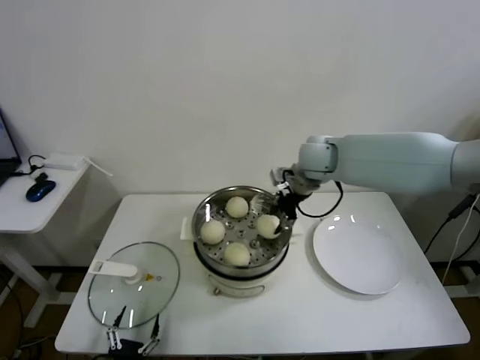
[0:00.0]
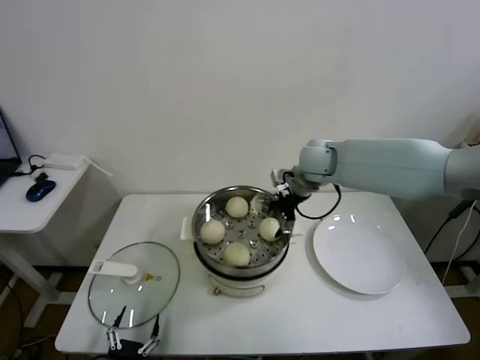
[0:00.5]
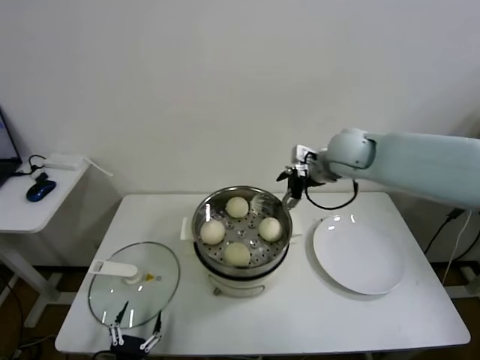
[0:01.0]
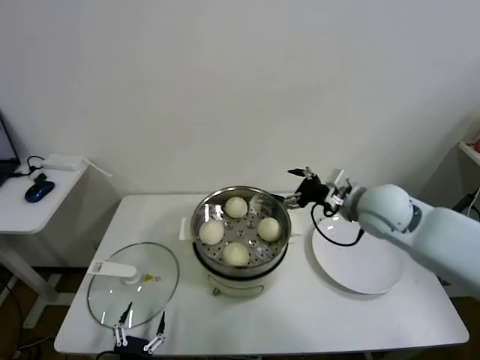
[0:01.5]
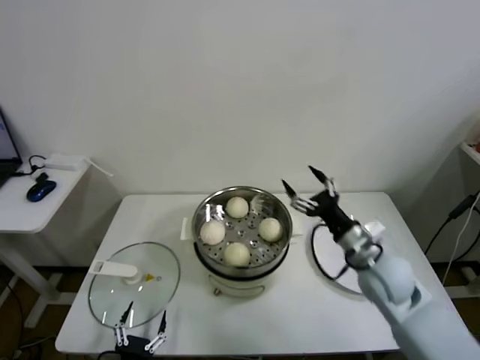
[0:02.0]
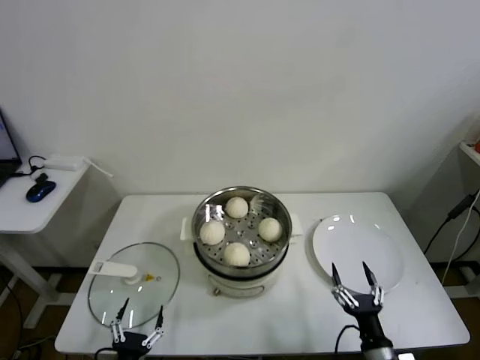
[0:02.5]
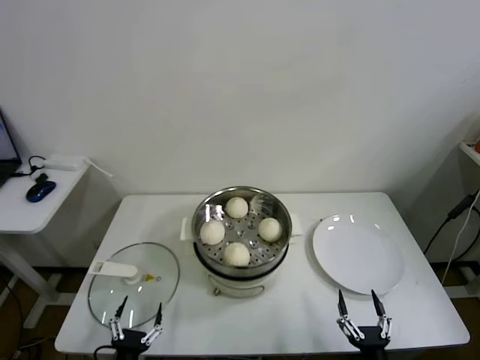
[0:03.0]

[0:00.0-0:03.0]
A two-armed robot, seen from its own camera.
Task of the whole recording: take steamed baozi put them in steamer.
0:00.0 to 0:01.5: The right gripper moves backward and to the right, approximately 15 cm, and opens its fingers.
0:01.5 to 0:03.0: The right gripper goes about 50 cm backward and downward.

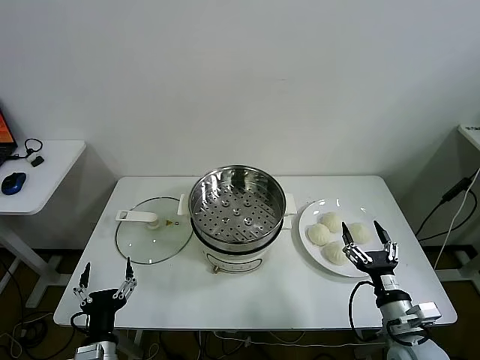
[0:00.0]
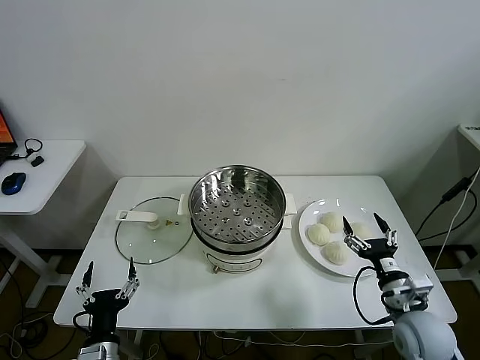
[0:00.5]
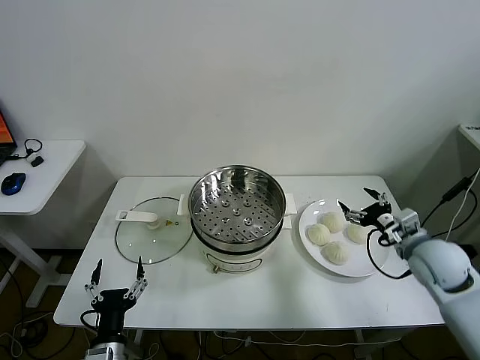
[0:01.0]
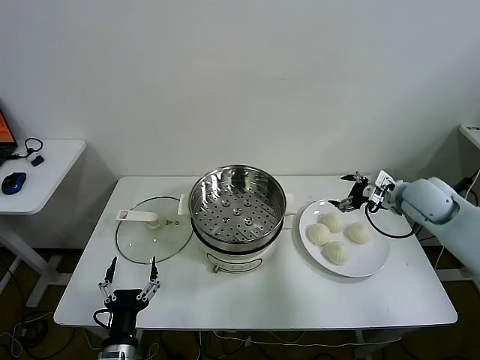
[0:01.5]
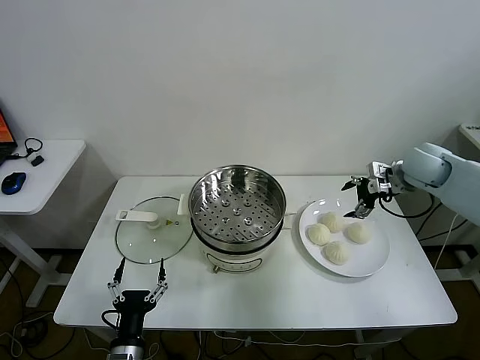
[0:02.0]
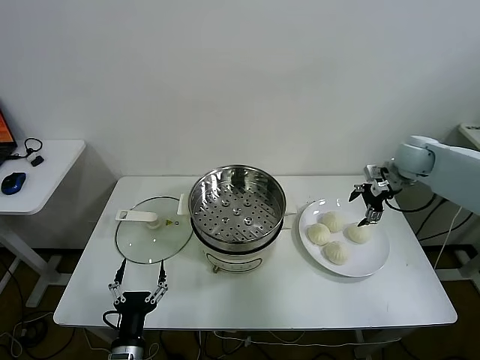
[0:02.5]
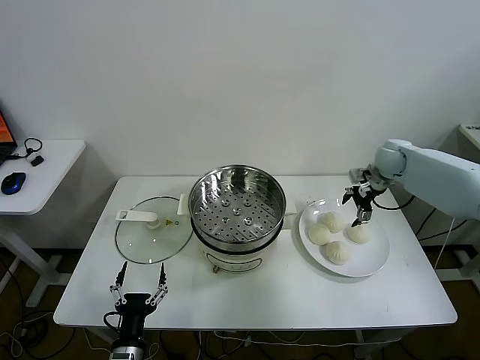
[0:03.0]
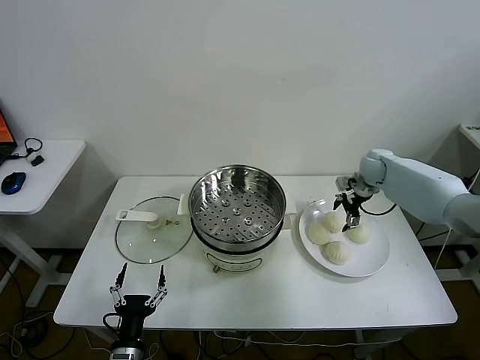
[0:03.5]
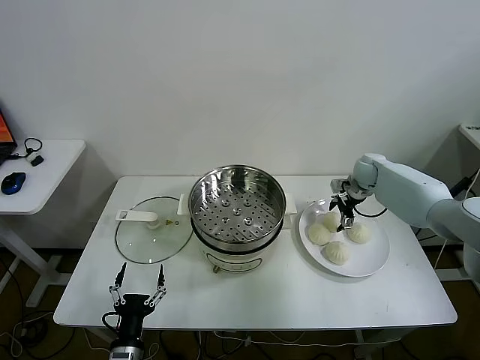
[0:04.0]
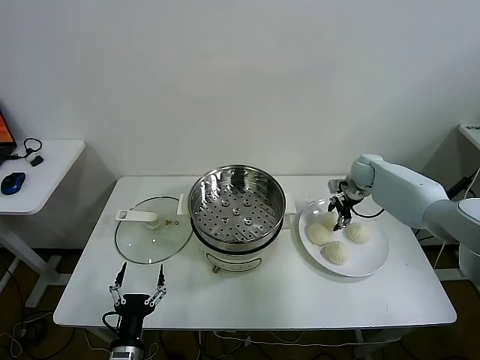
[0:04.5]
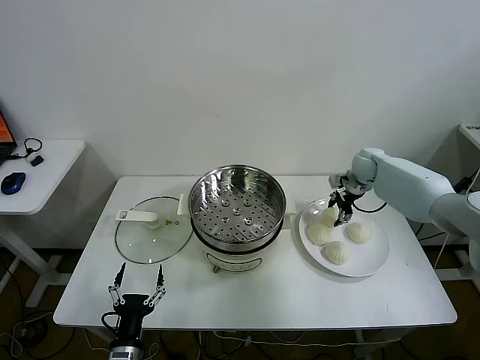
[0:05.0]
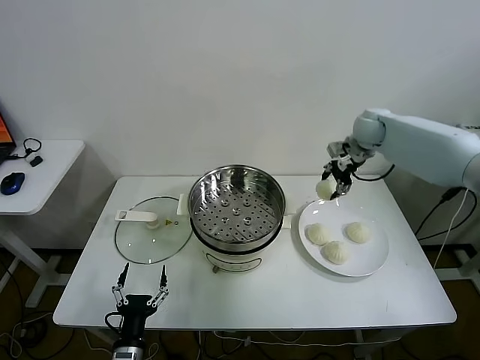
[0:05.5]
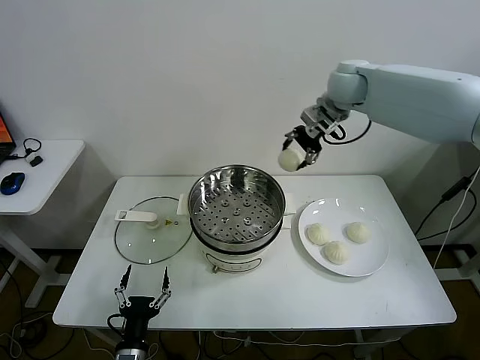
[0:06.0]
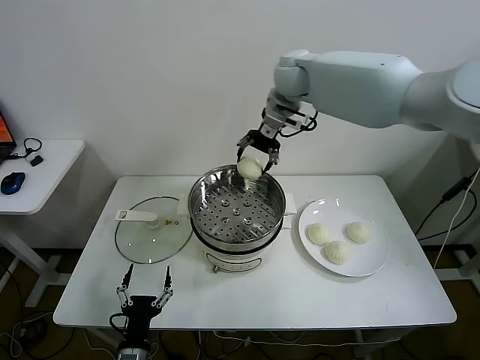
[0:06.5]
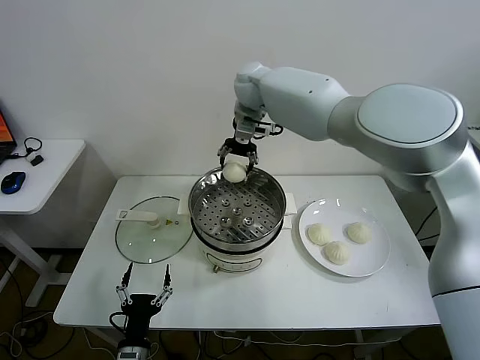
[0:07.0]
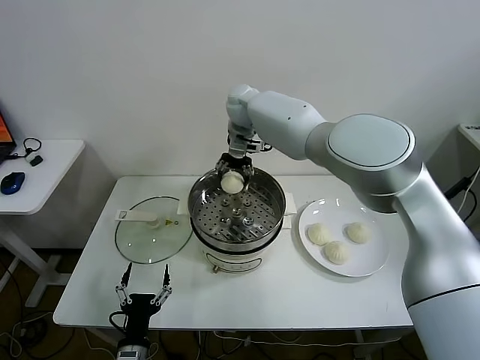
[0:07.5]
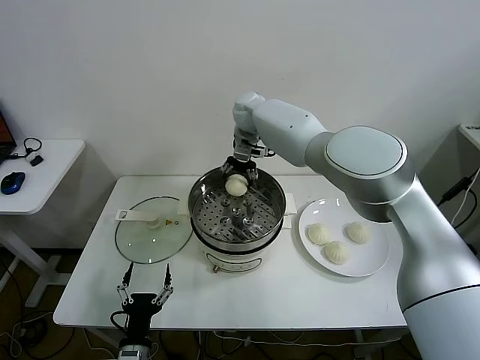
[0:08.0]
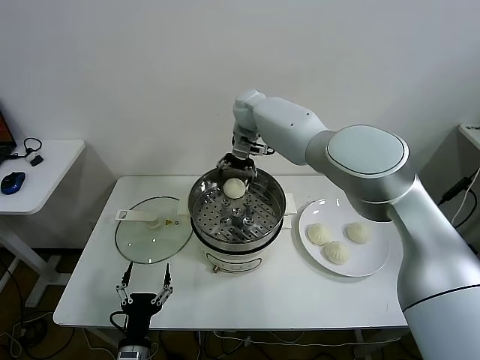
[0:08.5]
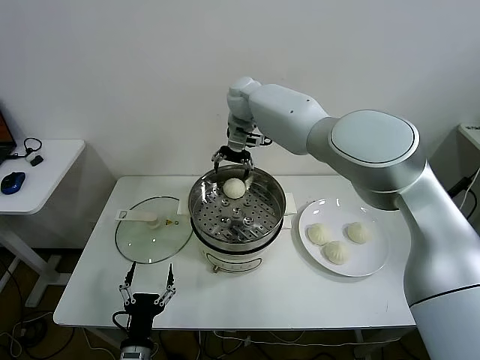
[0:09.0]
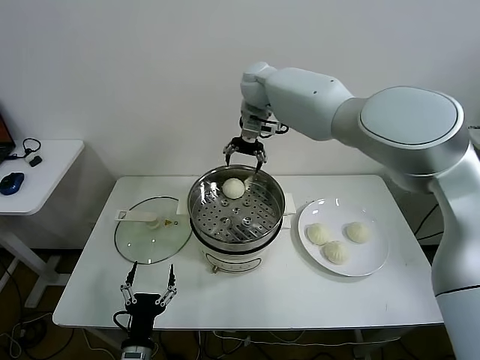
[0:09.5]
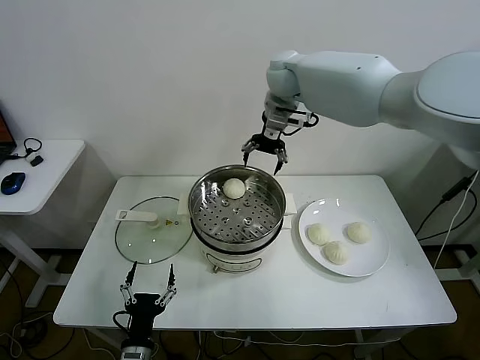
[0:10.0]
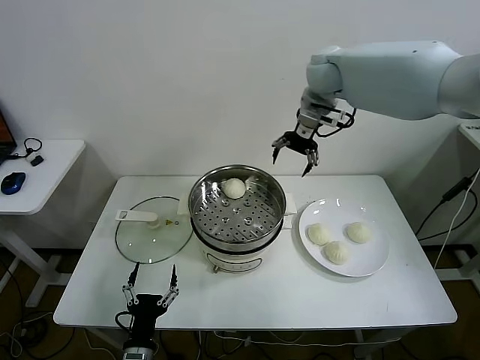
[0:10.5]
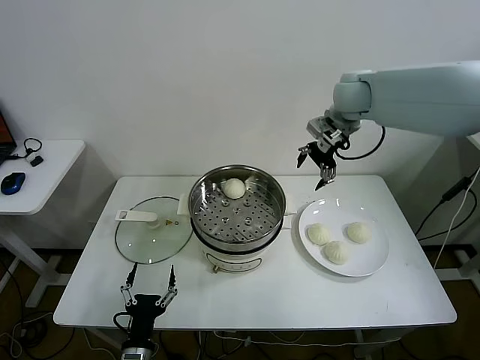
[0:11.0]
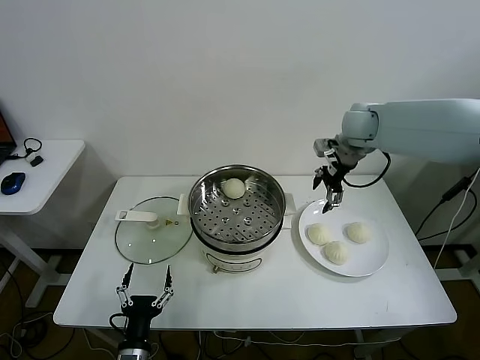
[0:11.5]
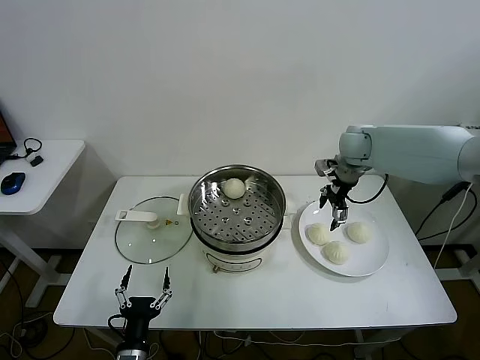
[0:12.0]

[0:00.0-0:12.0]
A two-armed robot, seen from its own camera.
Task of the whole recording: take steamed baozi put them in steamer.
Step, 0:00.0 to 0:04.5: Grasp the baozi in the plate with right gripper.
Step, 0:05.0 to 0:08.5: Place the baozi on the steamer with right gripper.
0:02.0 to 0:04.0: The right gripper is displaced downward and forward by roughly 15 cm.
0:04.0 to 0:06.0: The right gripper is displaced upward and to the left by approximately 30 cm, and closes.
0:06.0 to 0:08.0: The right gripper travels to the left and downward by roughly 20 cm.
0:08.0 to 0:10.0: The right gripper goes approximately 15 cm upward and to the right, and opens up.
0:10.0 to 0:12.0: The right gripper goes about 25 cm to the right and downward.

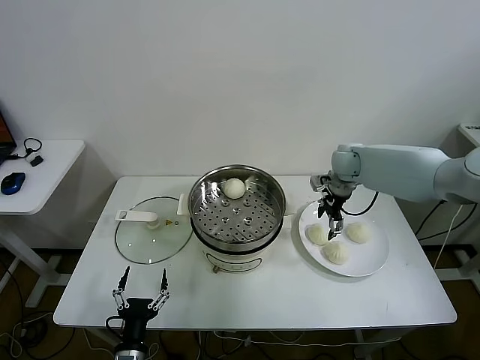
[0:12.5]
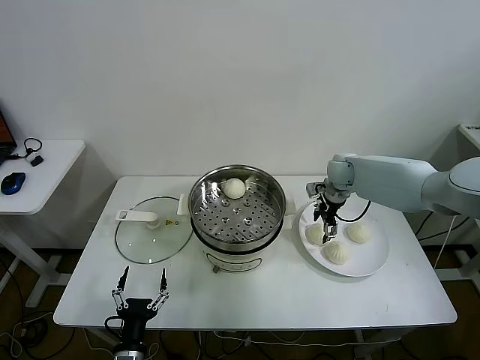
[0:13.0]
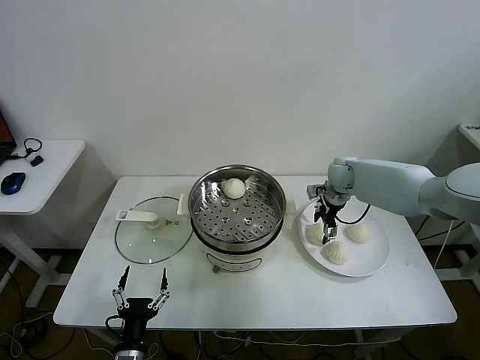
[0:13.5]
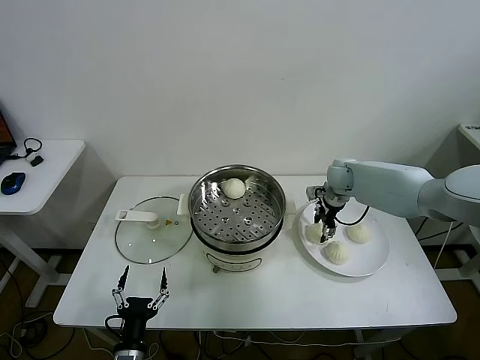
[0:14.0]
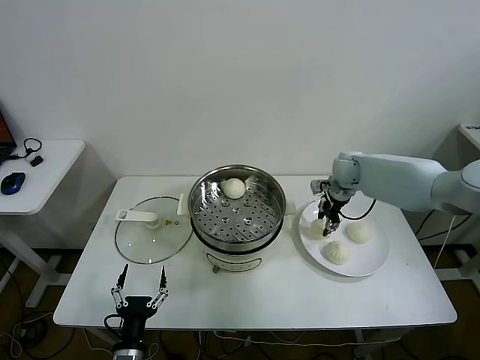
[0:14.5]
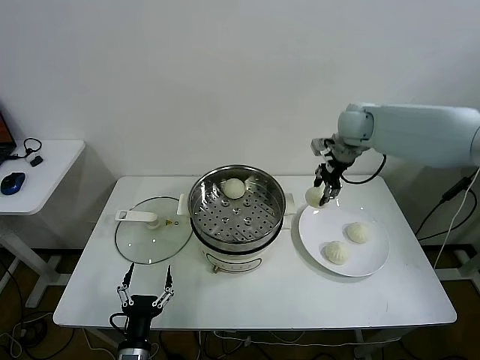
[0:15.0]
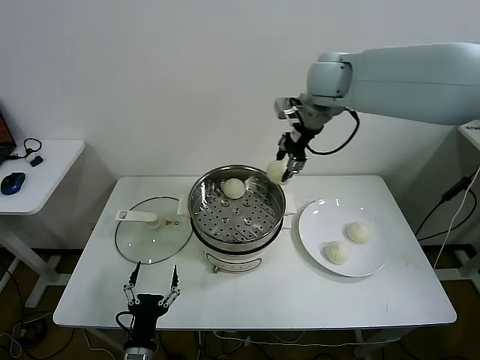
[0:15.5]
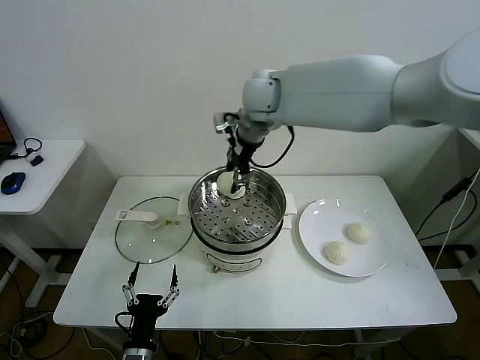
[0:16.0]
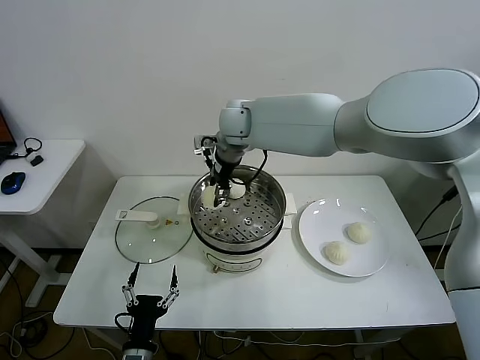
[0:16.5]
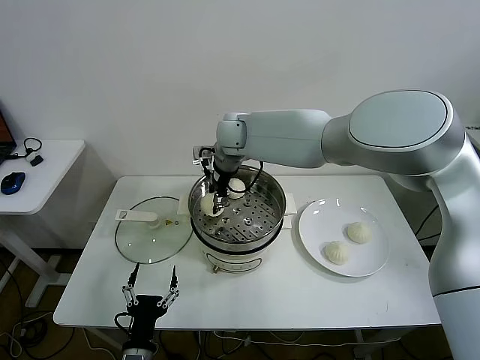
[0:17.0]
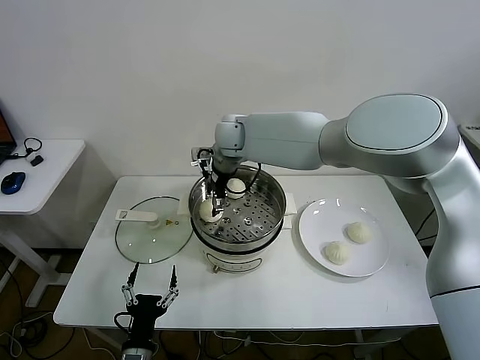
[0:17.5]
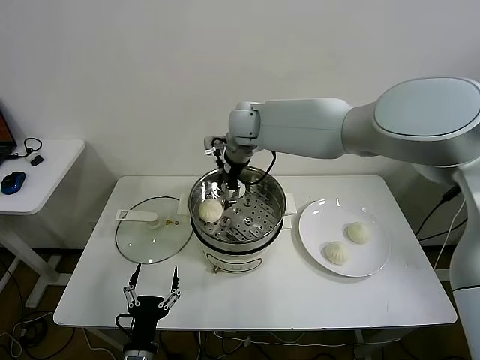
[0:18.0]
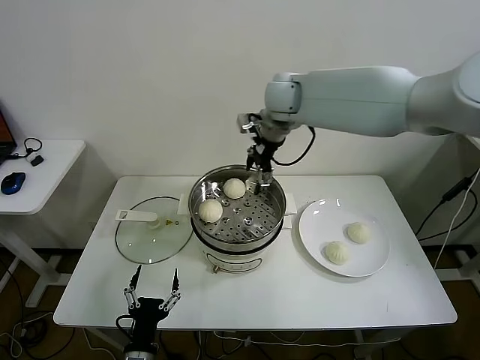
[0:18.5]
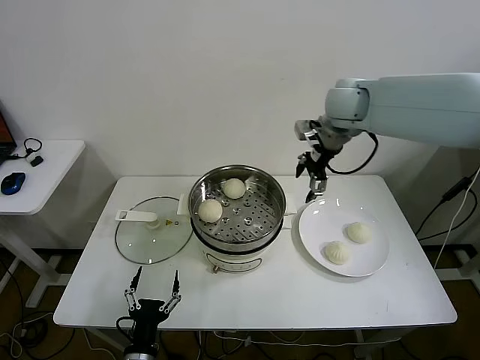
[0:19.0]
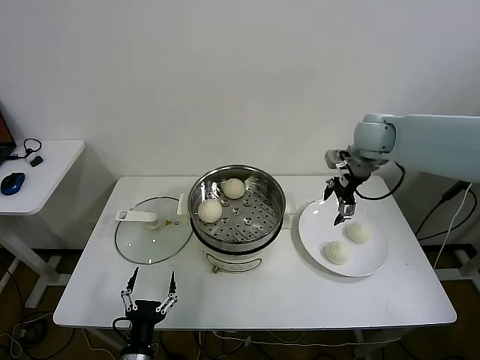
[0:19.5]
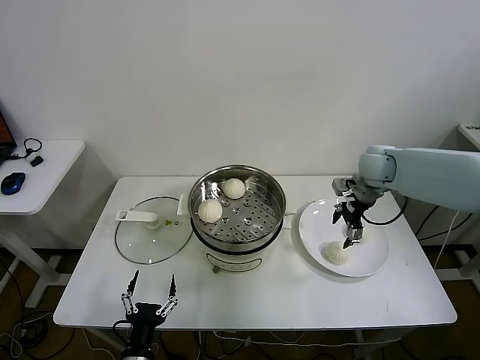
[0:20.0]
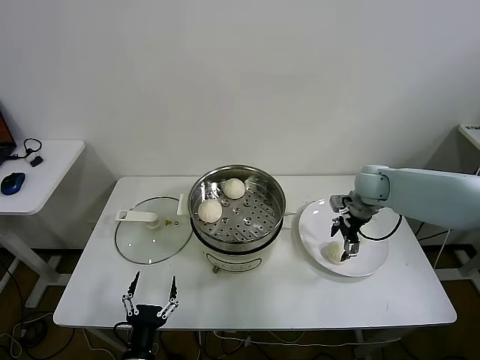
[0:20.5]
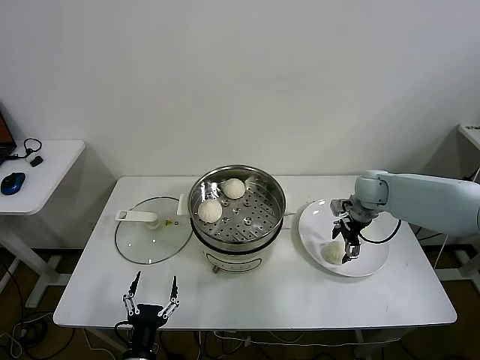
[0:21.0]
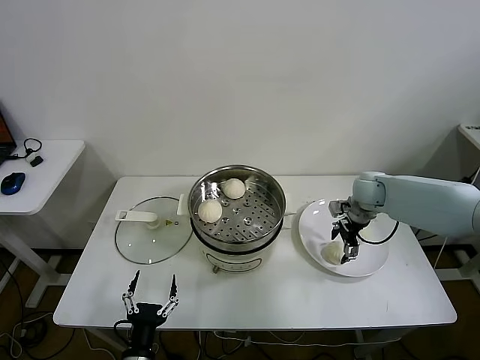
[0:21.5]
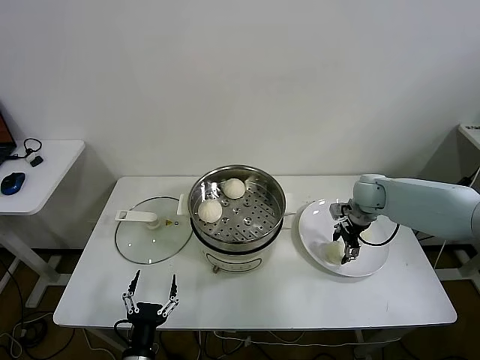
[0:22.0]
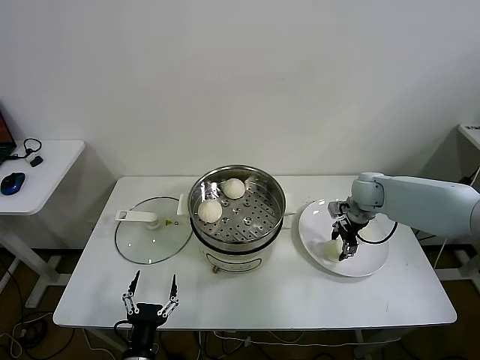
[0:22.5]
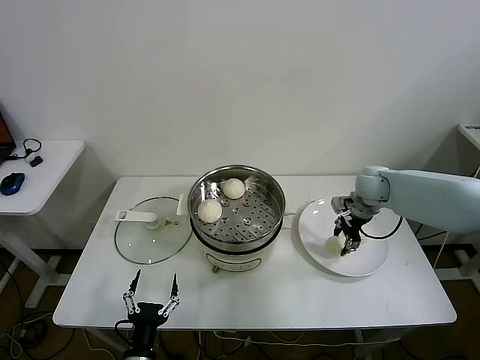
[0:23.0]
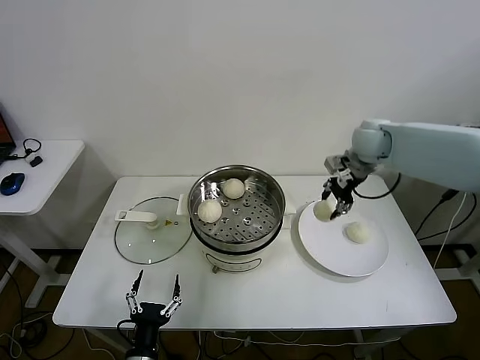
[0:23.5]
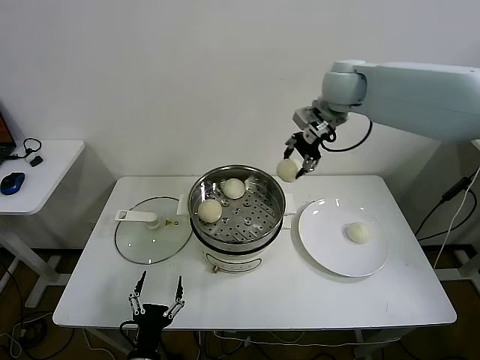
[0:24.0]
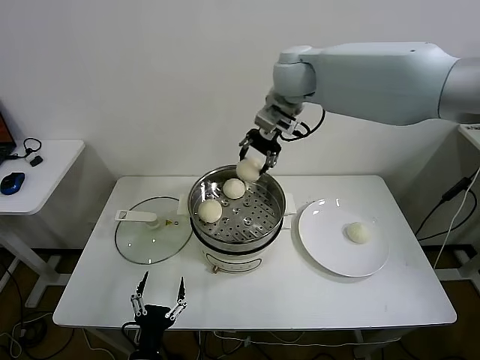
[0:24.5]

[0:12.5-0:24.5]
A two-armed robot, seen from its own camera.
Task of the whole recording: take steamed baozi put them in steamer.
Step, 0:14.5 to 0:17.5: Place the baozi on the steamer with right gripper.
Step, 0:18.0 to 0:22.5: Grasp the baozi in the plate with right gripper.
0:12.5 to 0:14.5: The right gripper closes.
0:14.5 to 0:16.5: The right gripper goes about 35 cm to the left and upward.
0:16.5 to 0:18.5: The right gripper travels to the right and upward by about 15 cm, and opens up.
0:18.5 to 0:20.5: The right gripper travels to the right and downward by about 30 cm.
0:20.5 to 0:22.5: The right gripper closes.
0:22.5 to 0:24.5: The right gripper is displaced upward and to the left by some 35 cm.
